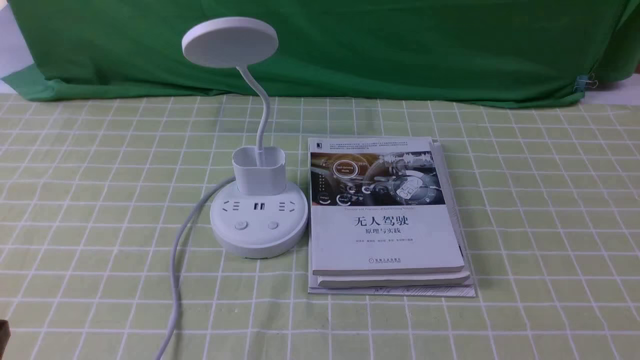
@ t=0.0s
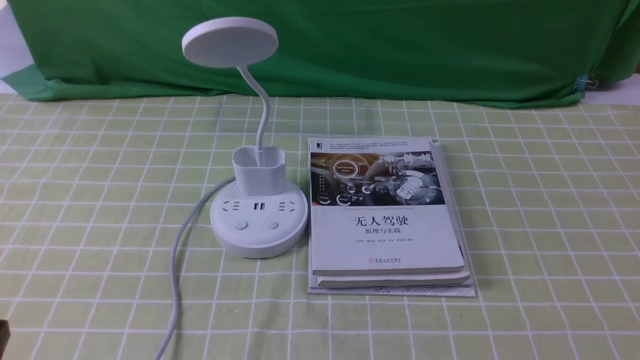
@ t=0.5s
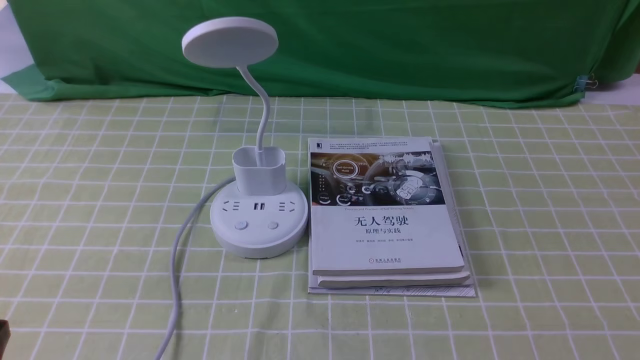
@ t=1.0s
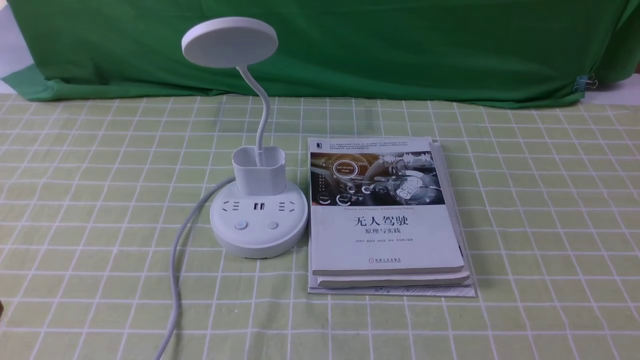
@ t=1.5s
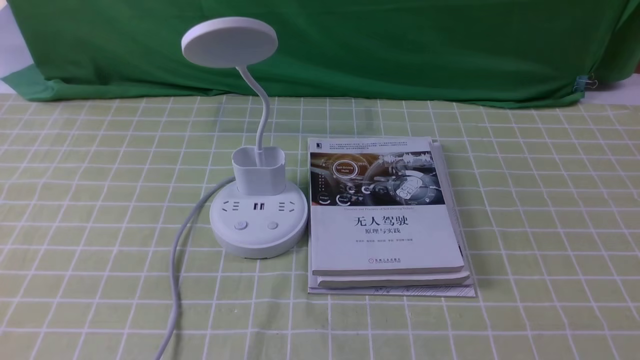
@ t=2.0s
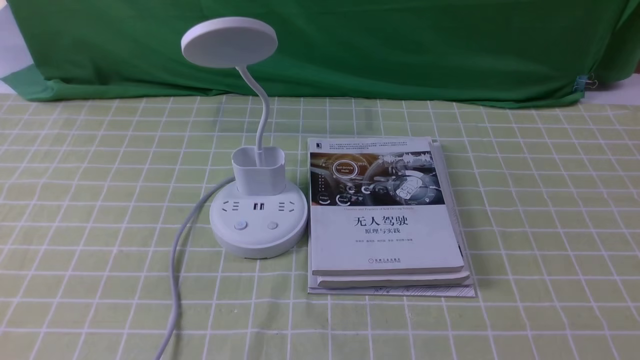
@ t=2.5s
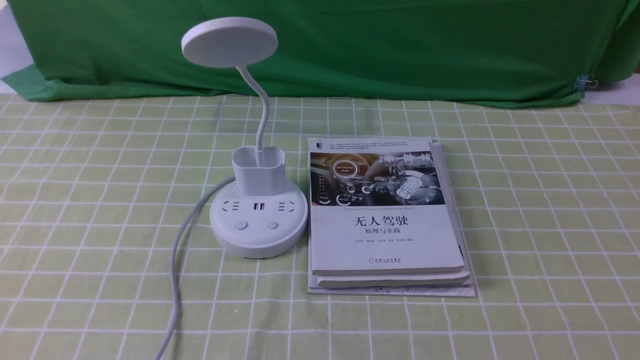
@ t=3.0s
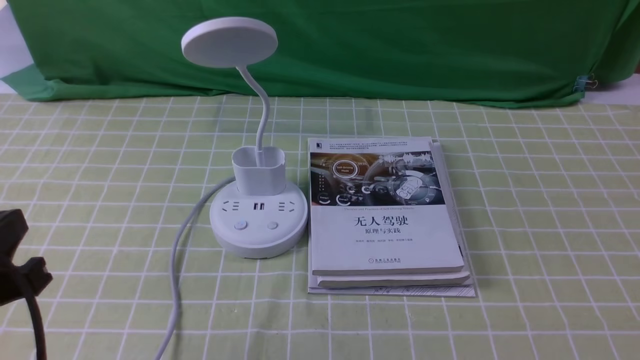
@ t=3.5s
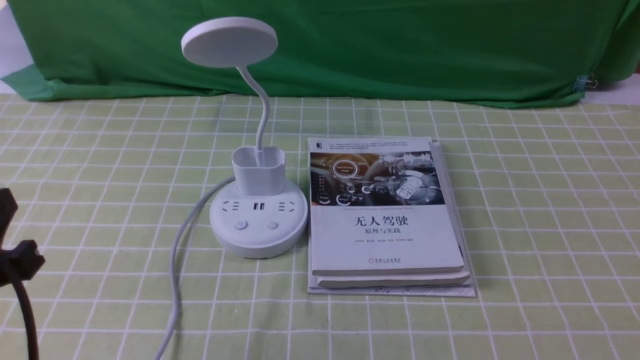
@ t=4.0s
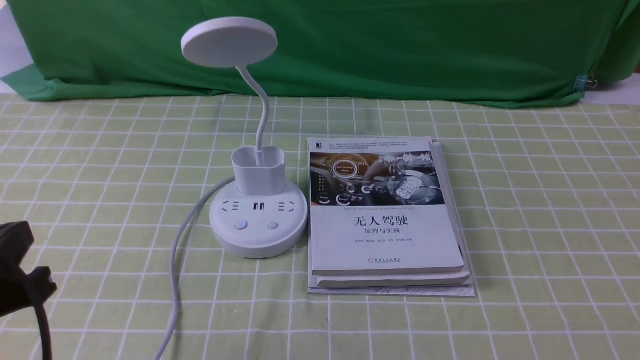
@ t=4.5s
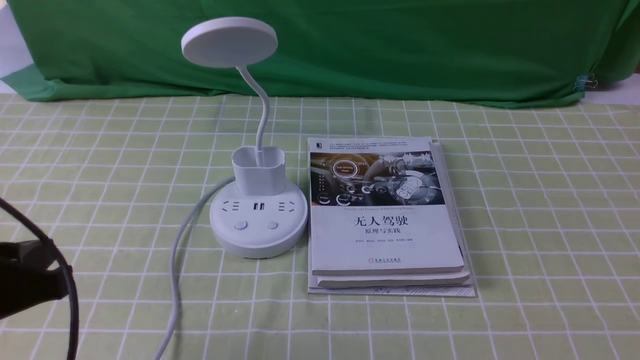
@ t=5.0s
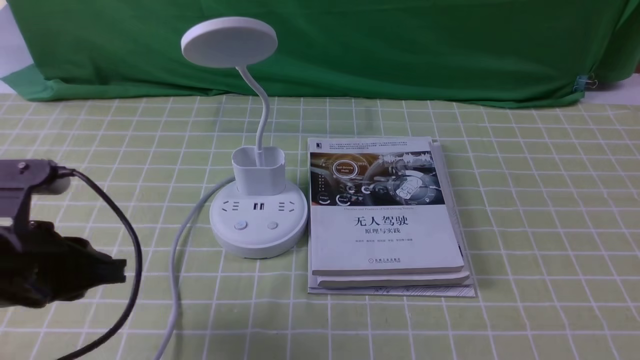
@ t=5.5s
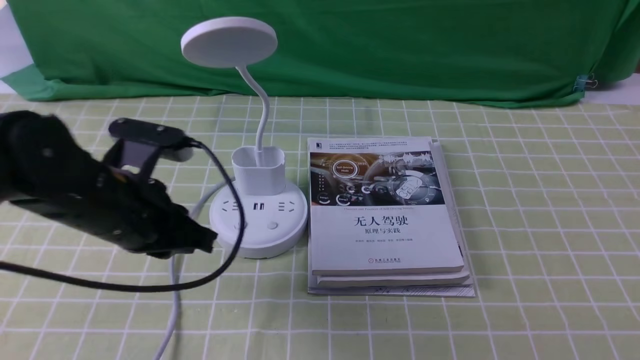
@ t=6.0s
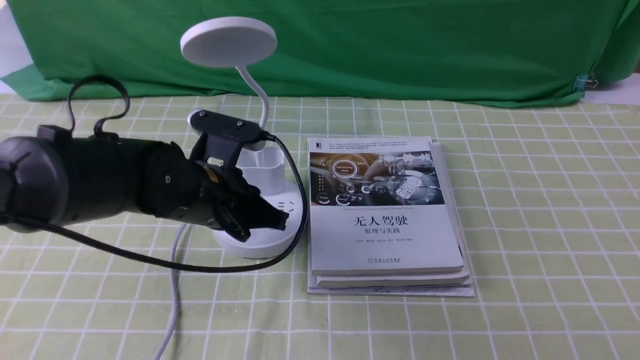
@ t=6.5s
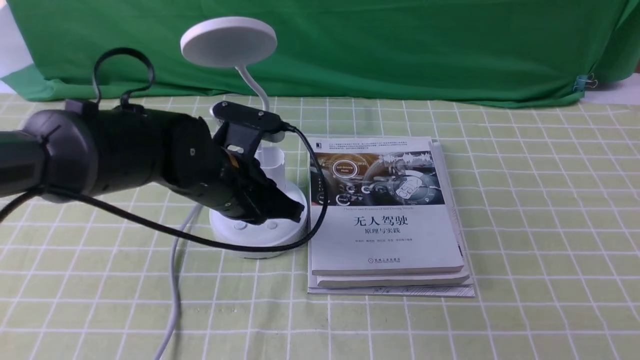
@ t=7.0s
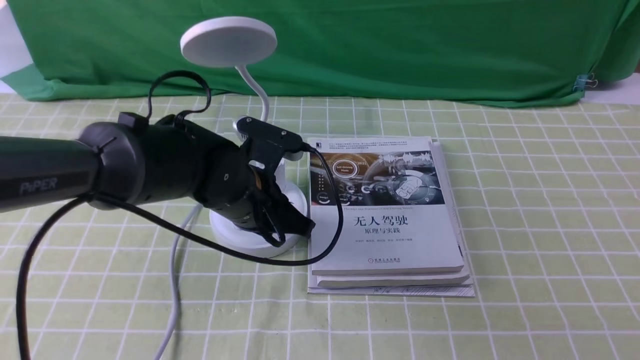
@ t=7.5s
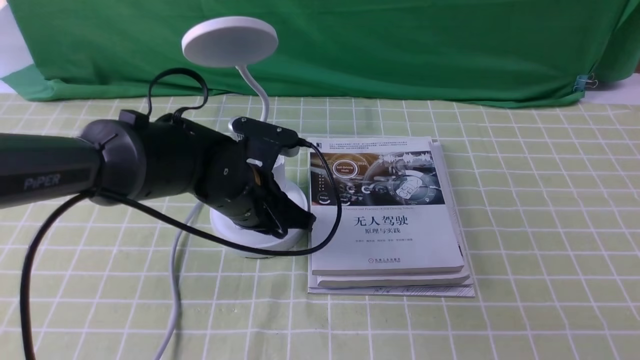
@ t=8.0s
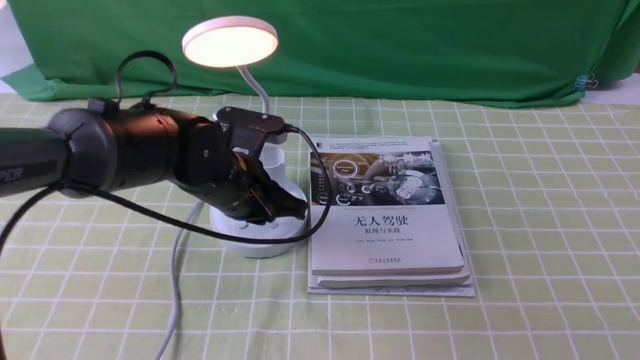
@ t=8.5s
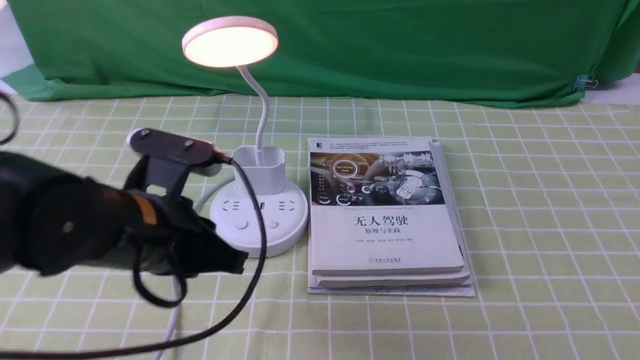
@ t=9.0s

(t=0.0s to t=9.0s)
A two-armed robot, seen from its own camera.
Step, t=0.0s - t=8.5s: use the left arm to press the button switch on the lamp holder.
t=2.0s - t=4.5s: The left gripper goes approximately 5 cm forward.
t=4.5s - t=7.0s: The left gripper goes some 25 cm forward and to the right.
t=7.0s - t=9.0s: The left gripper moves backward and upward, roughly 10 cm.

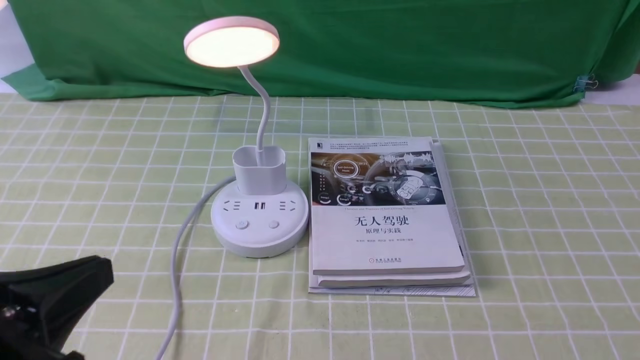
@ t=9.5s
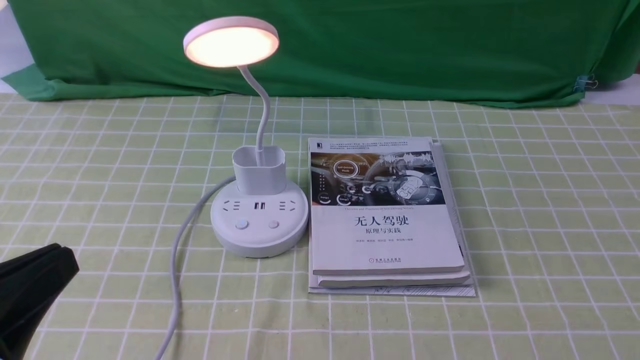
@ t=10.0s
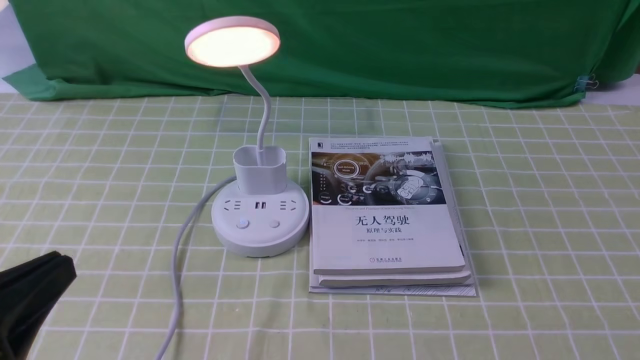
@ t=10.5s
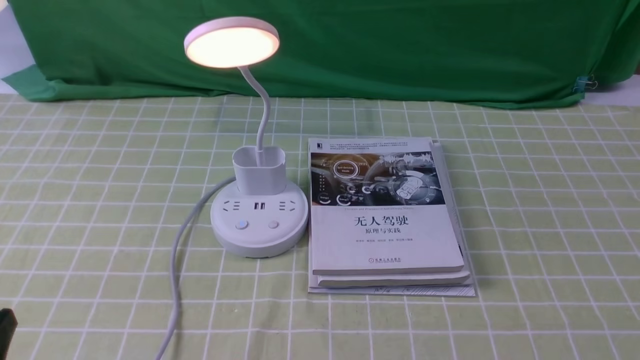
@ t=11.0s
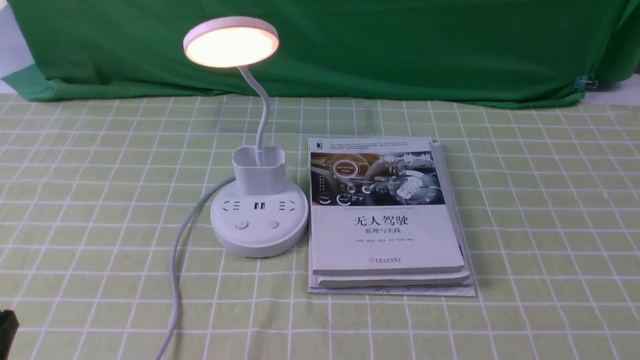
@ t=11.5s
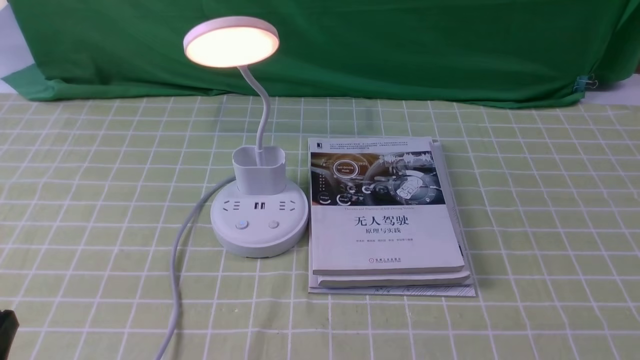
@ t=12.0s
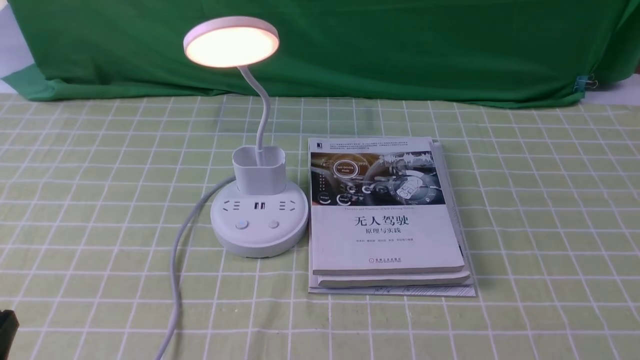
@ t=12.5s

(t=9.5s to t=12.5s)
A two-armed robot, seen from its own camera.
t=9.5s - t=11.0s: The left gripper goes some 10 cm downward.
t=11.0s - t=12.5s: The two grippers keep their place.
